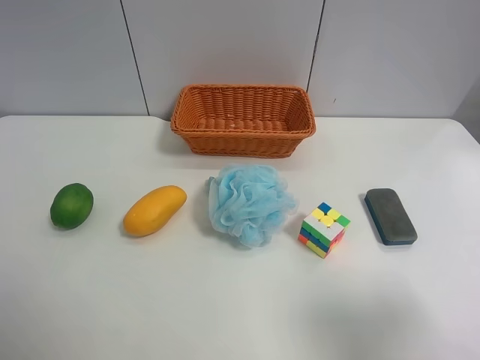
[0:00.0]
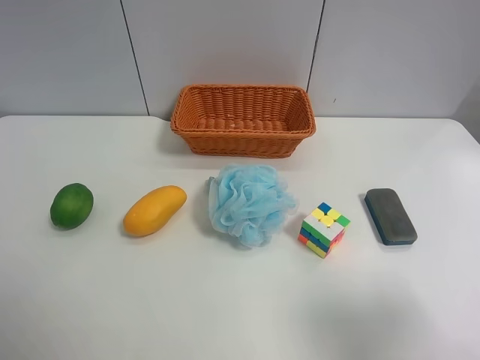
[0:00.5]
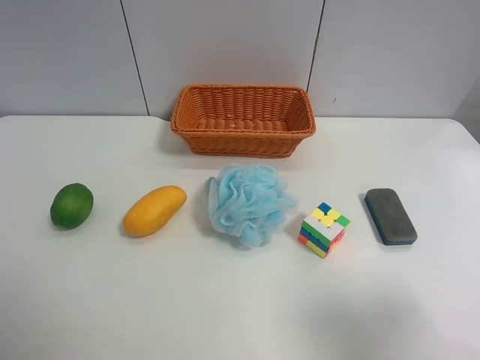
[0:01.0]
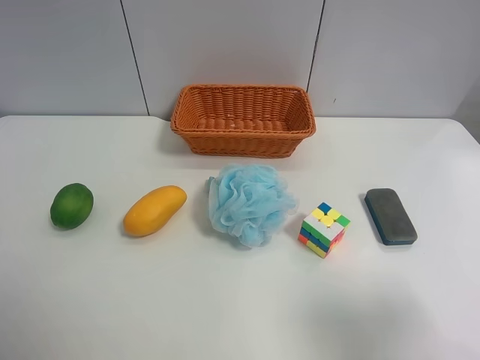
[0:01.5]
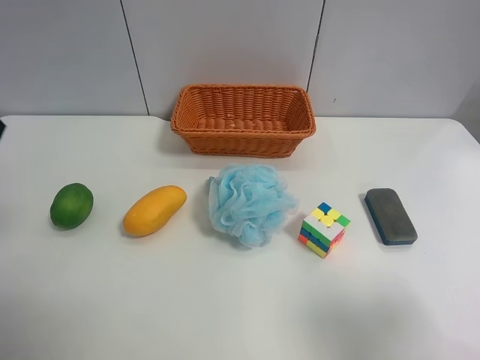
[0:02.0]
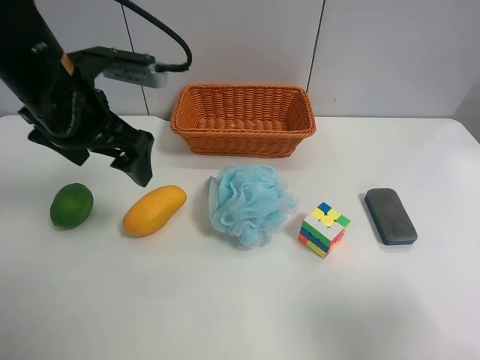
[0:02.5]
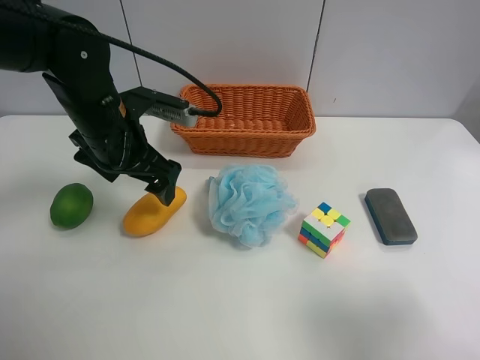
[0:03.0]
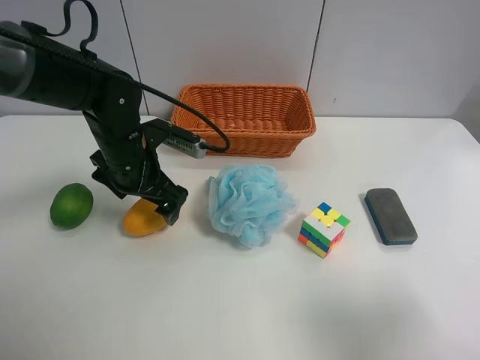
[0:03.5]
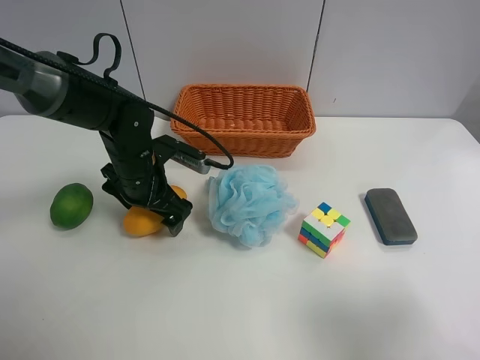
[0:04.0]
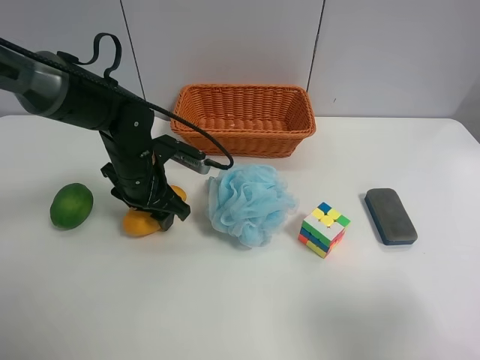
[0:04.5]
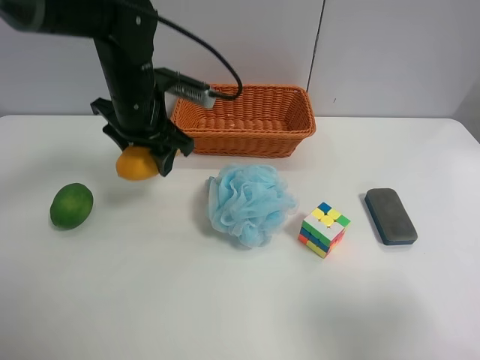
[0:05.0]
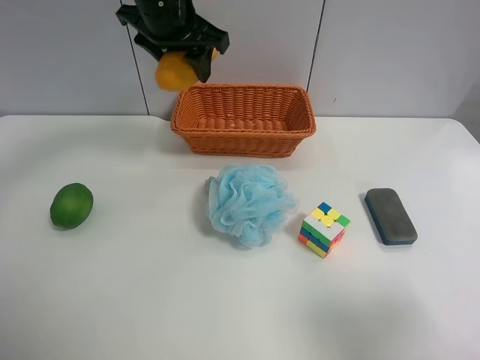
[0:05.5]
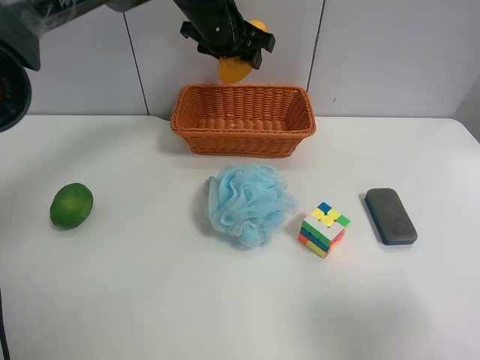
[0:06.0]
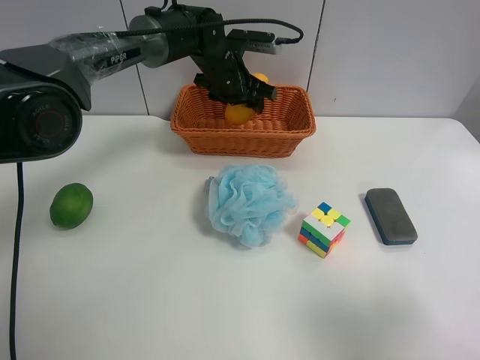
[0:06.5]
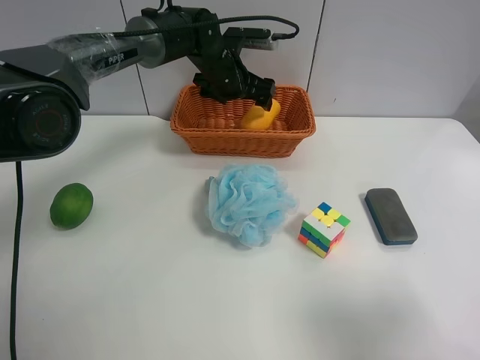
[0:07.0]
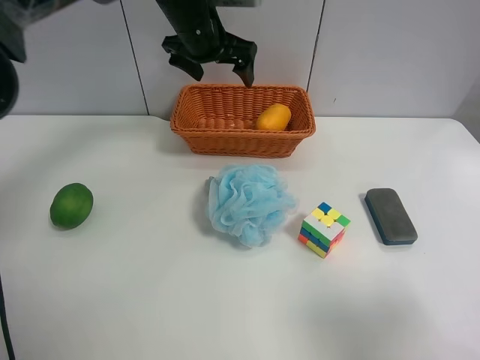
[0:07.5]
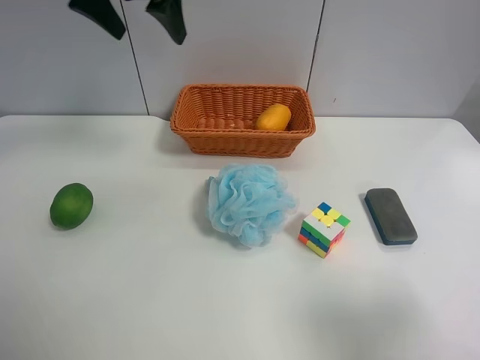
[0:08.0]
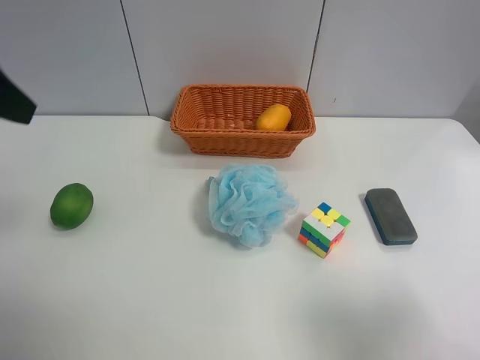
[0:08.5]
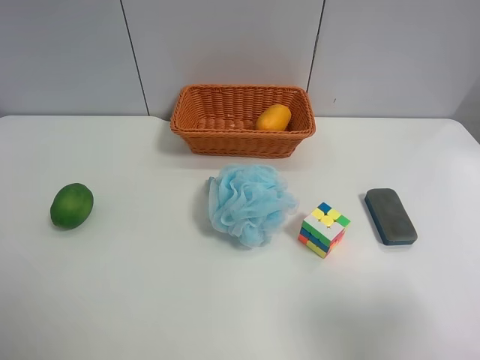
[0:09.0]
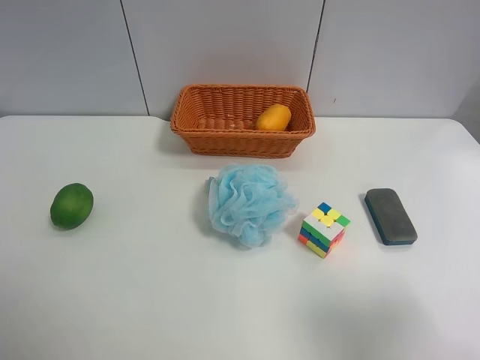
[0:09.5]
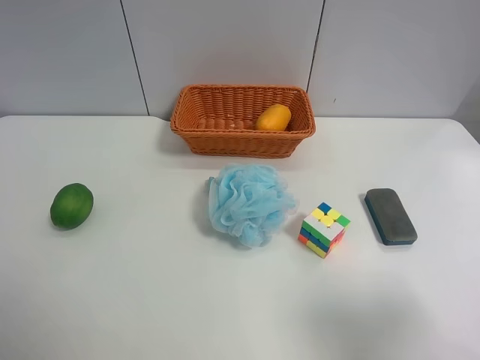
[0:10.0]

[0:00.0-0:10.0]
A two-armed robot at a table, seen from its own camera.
Task of the whole recording: Randomly grab green lemon or mangoes from the table and put them in a basket.
Step, 0:00.0 to 0:04.0: Grasp the mango with the left gripper.
Step, 0:04.5 to 0:07.5: Place the mango into the basket with the left gripper.
0:02.0 to 0:04.0: The left gripper shifts roughly 30 cm downward, forward and to the right.
0:04.0 to 0:06.0: The left gripper heads upward, forward and to the right, covering roughly 25 cm, and closes up.
0:06.0 to 0:08.0: The left gripper heads to the left, upward and backward, covering about 20 cm, and opens its fingers.
0:08.0 to 0:10.0: The left gripper moves backward, roughly 40 cm.
